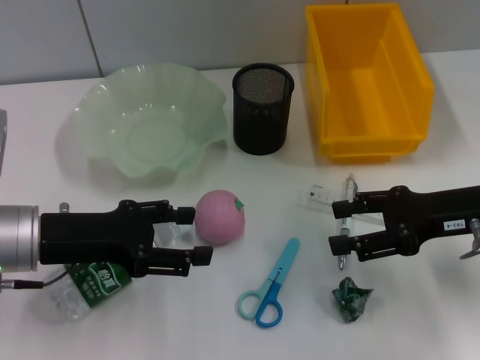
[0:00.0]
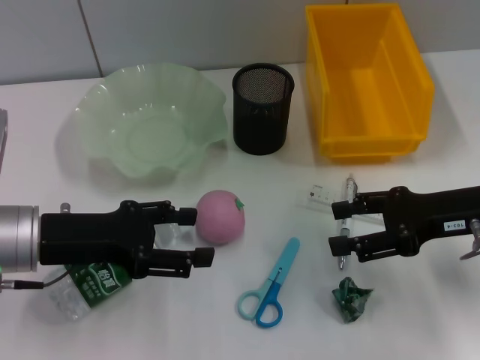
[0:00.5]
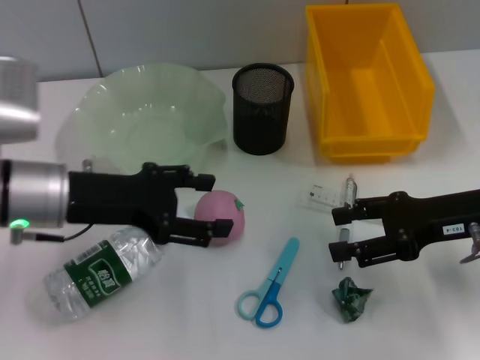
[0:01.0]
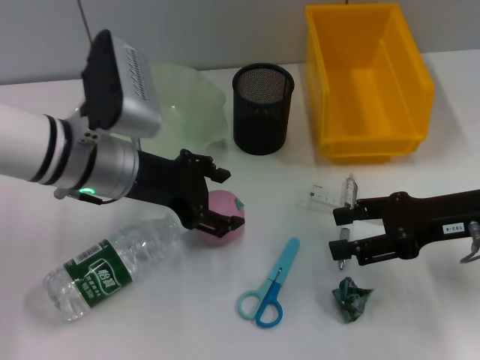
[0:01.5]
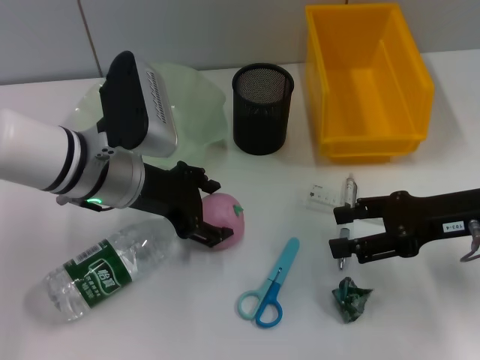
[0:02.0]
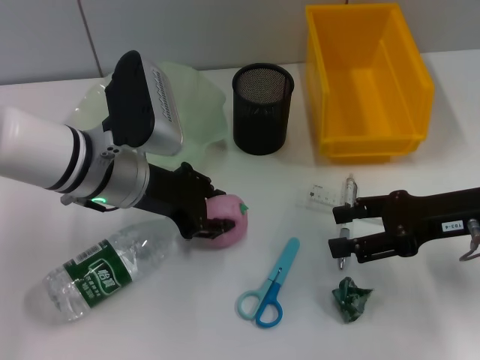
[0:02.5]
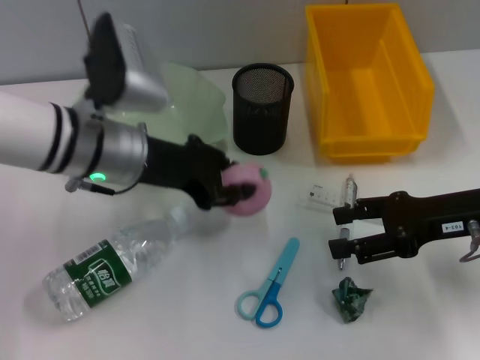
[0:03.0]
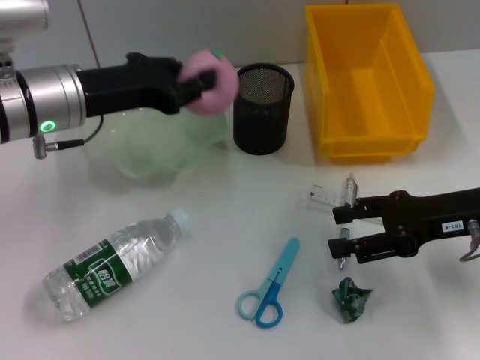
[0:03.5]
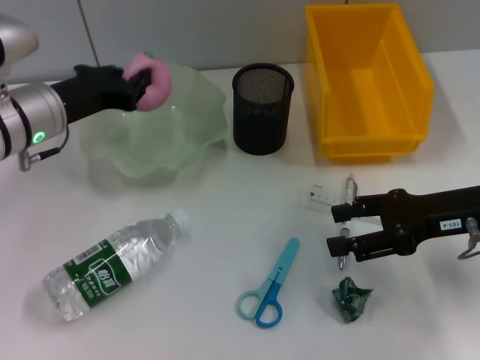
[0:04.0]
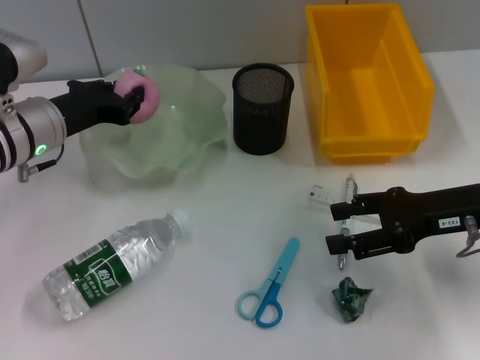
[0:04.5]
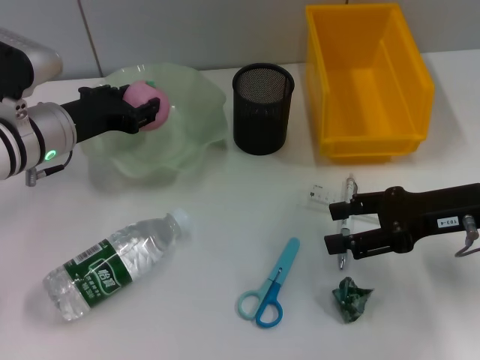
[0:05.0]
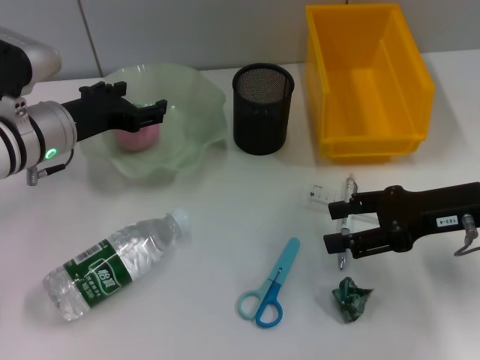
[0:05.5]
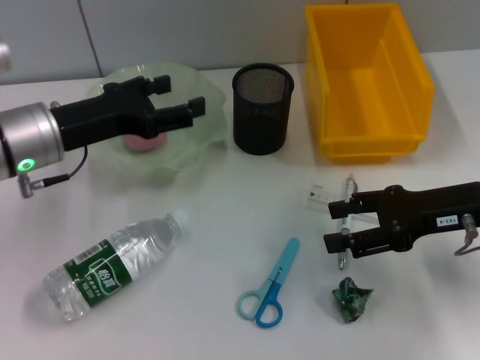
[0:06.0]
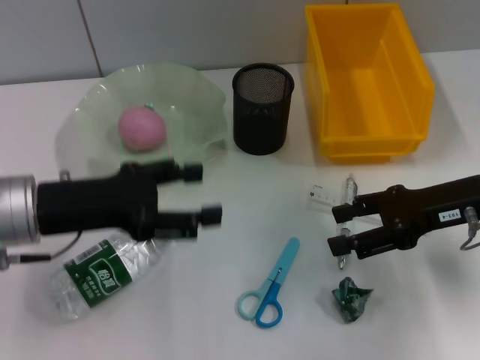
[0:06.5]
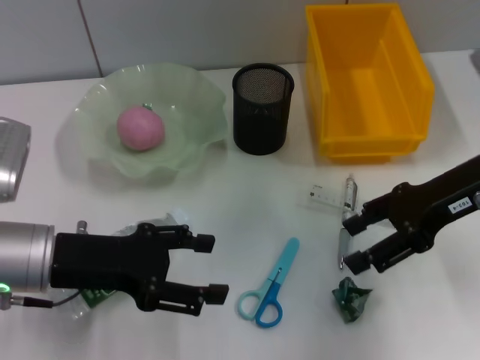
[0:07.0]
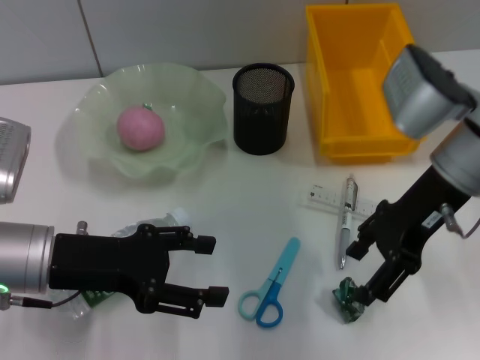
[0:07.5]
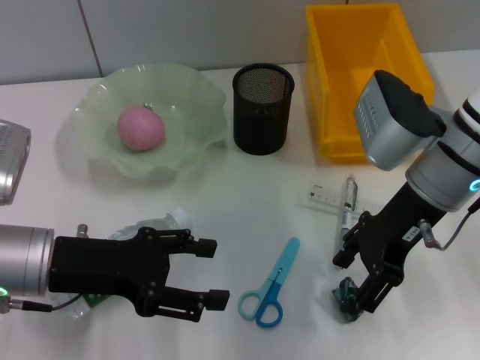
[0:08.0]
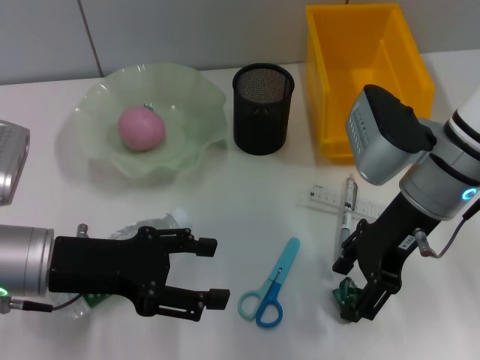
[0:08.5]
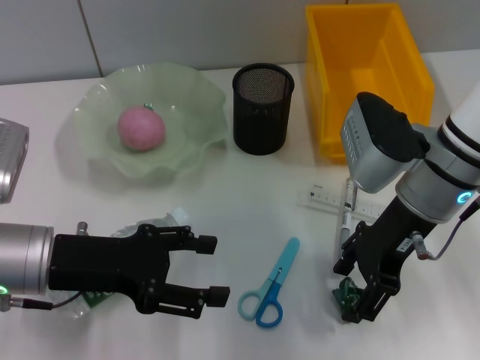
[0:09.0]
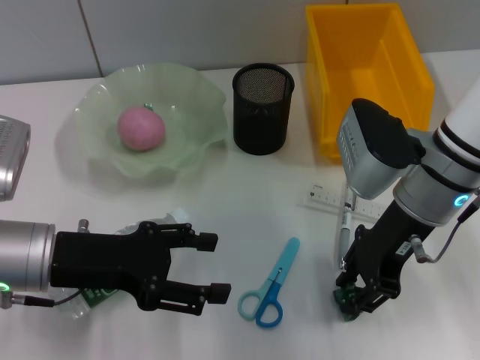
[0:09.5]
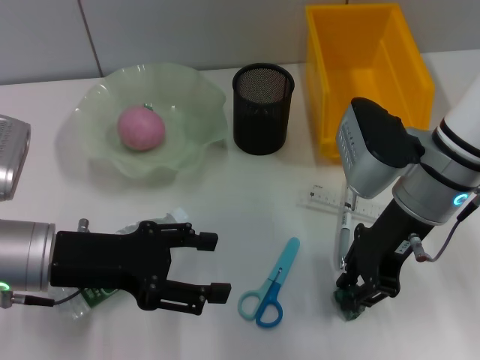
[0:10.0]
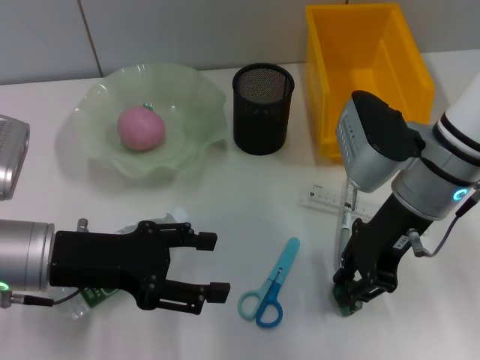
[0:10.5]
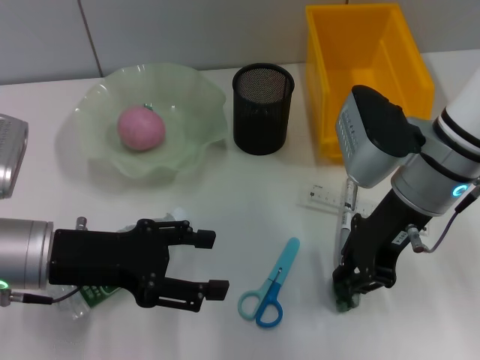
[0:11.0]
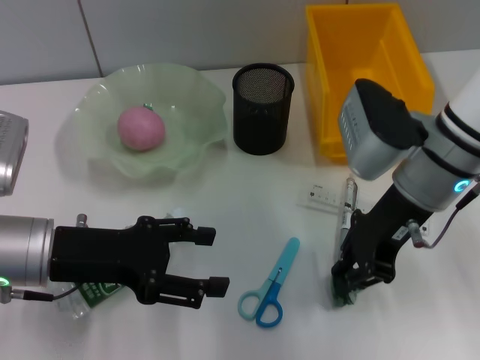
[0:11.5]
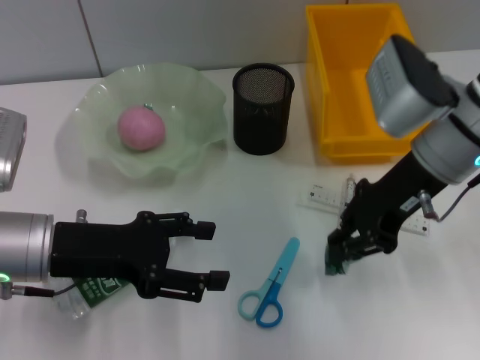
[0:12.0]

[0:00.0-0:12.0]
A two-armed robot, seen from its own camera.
Step, 0:00.0 to 0:02.5: Grab the peach with the left hand.
Step, 0:03.0 to 0:04.5: Place the peach into the fruit bowl with the left hand.
Step, 0:05.0 to 0:10.0: Grab the plastic with the right hand.
0:00.0 to 0:02.0: The left gripper shifts some 10 cm to the right and forward.
0:02.0 to 0:04.0: The left gripper goes about 5 cm to the left, and closes its fingers.
0:04.0 to 0:06.0: The left gripper opens its fingers.
0:06.0 to 0:08.0: The left gripper is displaced backward by roughly 10 cm, while the right gripper shifts roughly 10 cm to the left.
0:08.0 to 0:10.0: The right gripper closes.

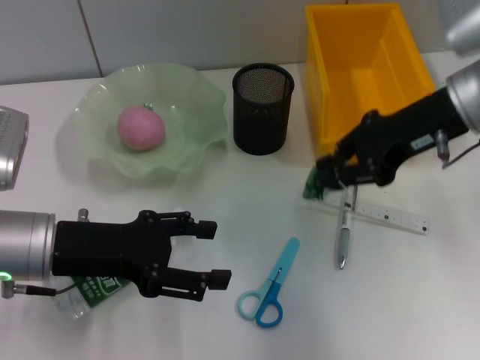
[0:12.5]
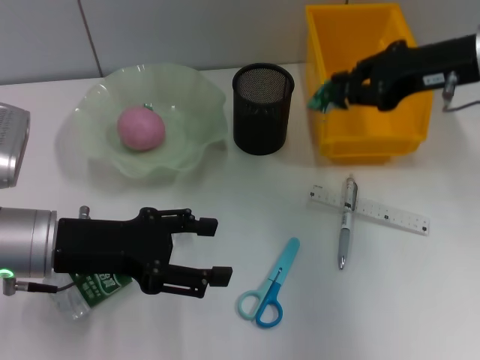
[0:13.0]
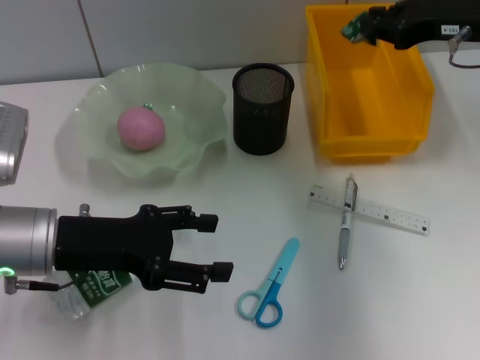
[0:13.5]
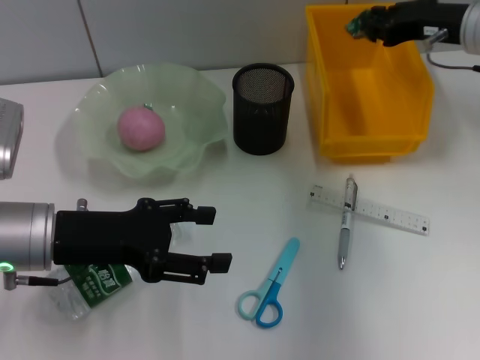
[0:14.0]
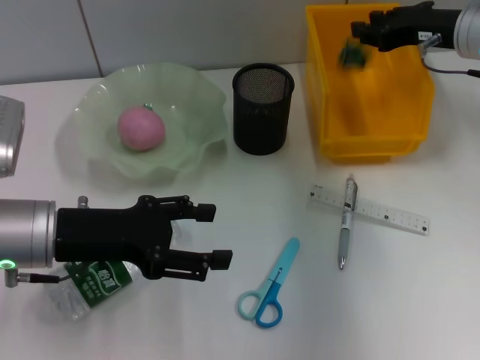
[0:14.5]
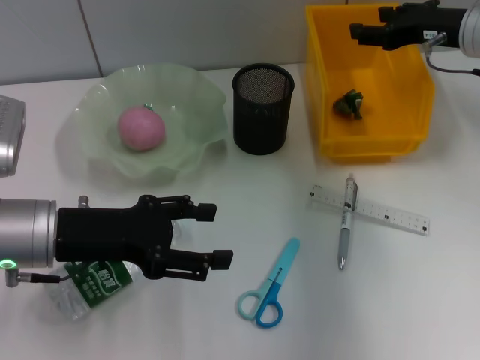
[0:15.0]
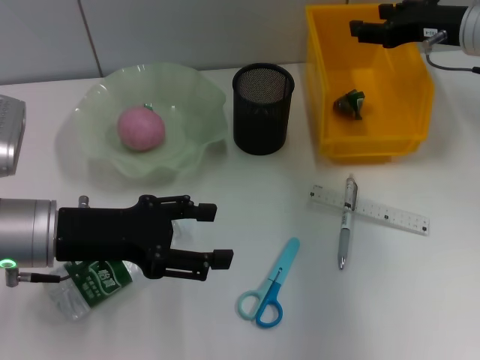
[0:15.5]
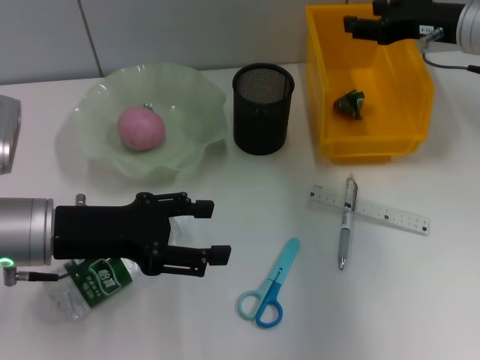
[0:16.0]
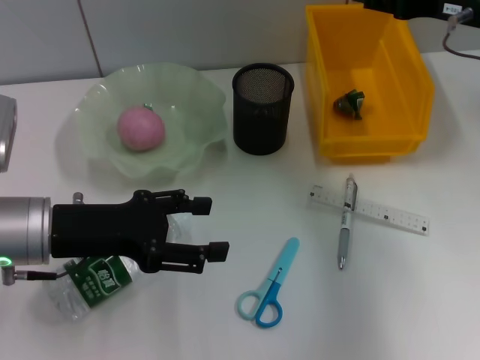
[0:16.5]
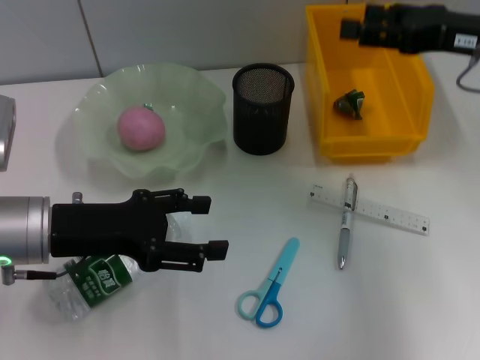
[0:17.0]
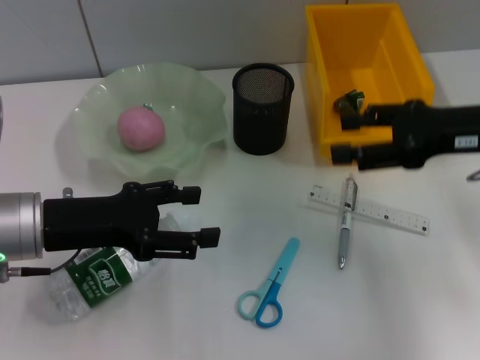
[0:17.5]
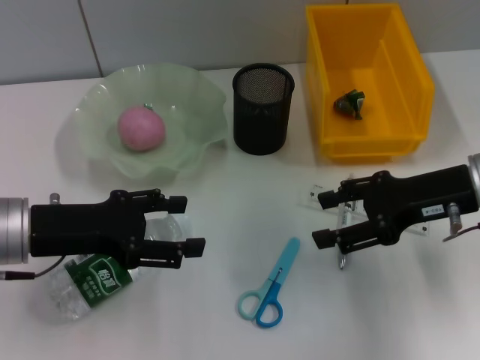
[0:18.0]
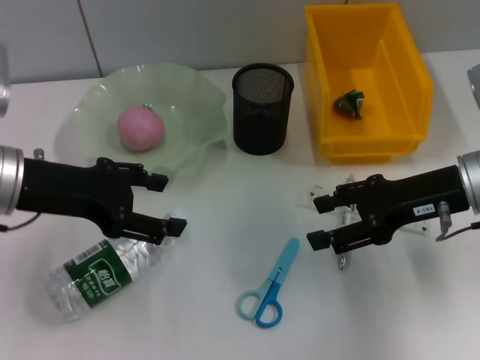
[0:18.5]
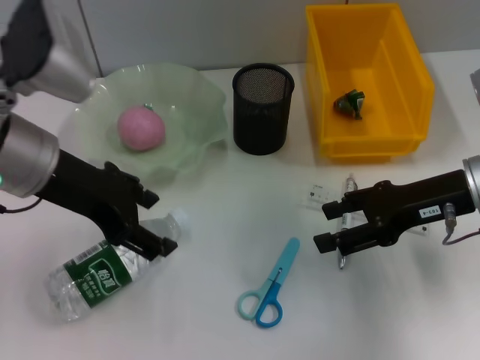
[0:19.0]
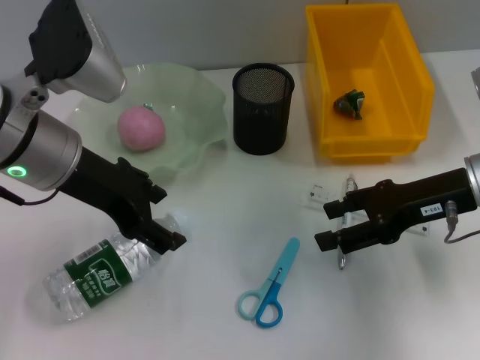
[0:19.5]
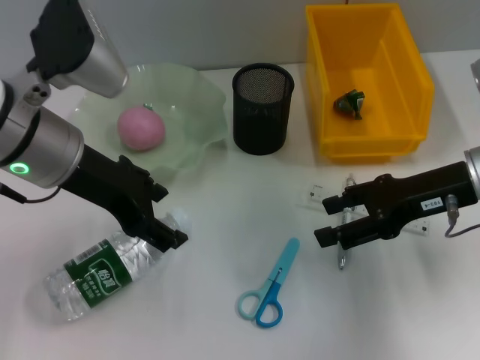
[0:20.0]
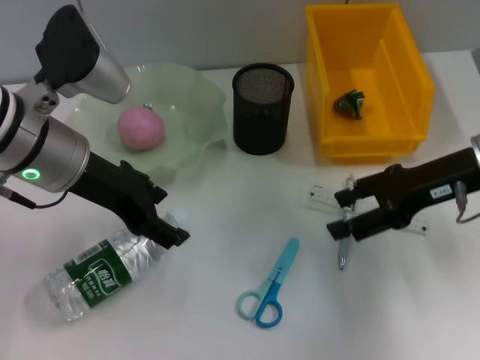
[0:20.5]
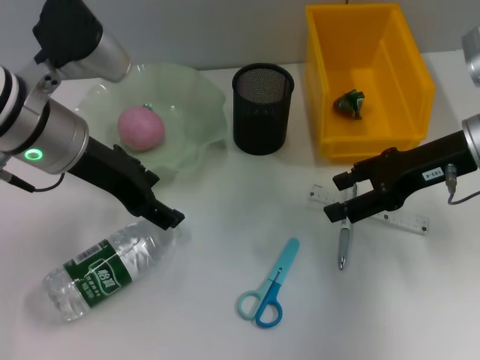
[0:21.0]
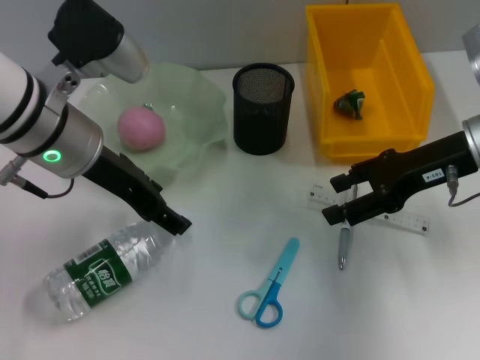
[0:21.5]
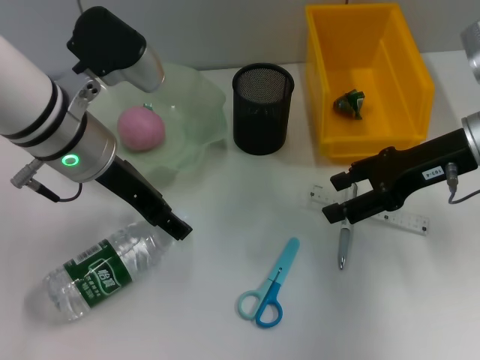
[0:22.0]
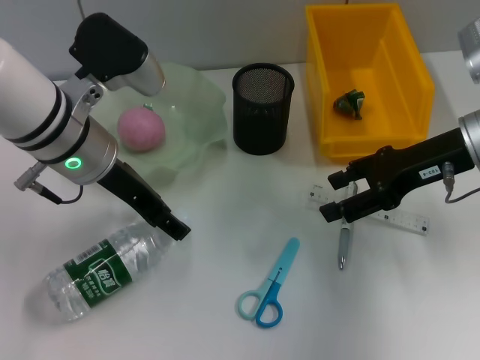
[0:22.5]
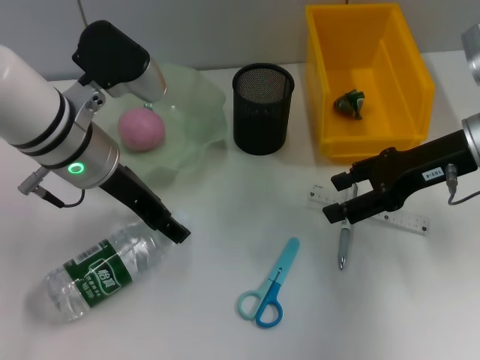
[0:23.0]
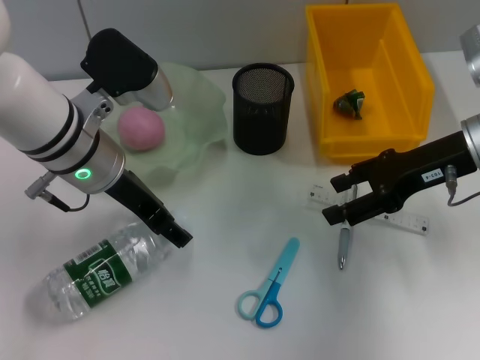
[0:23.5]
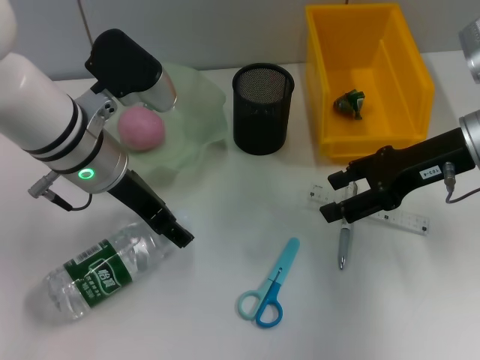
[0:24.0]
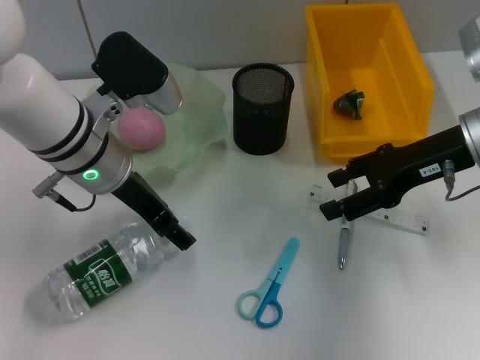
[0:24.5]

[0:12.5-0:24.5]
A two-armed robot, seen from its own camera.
Step, 0:12.5 to 0:14.5: Place the plastic into the trash can with the right hand.
0:12.5 to 0:14.5: The right gripper moves forward, roughly 5 cm.
0:14.5 to 0:16.5: The right gripper opens up.
0:16.5 to 0:18.5: The right gripper goes about 10 cm backward and downward. The left gripper changes place by approximately 5 cm.
0:18.5 to 0:20.5: The left gripper goes about 5 cm to the right.
0:20.5 to 0:24.5: The grippers make only small movements.

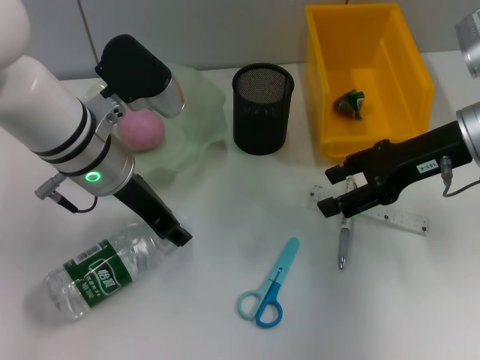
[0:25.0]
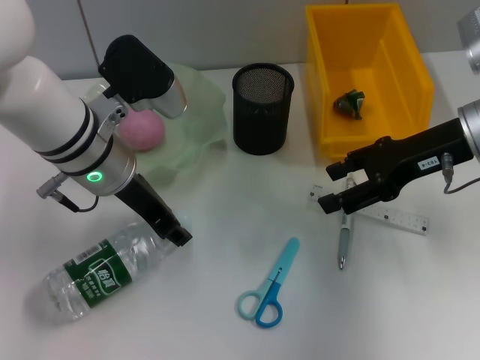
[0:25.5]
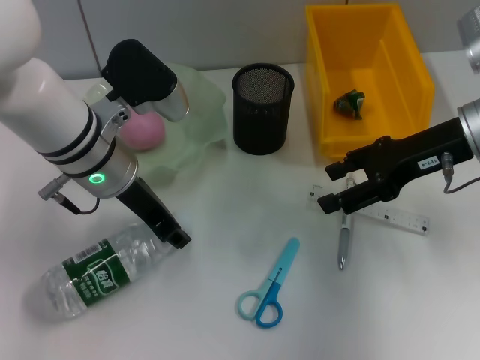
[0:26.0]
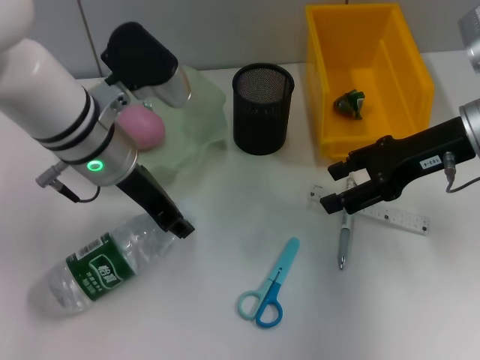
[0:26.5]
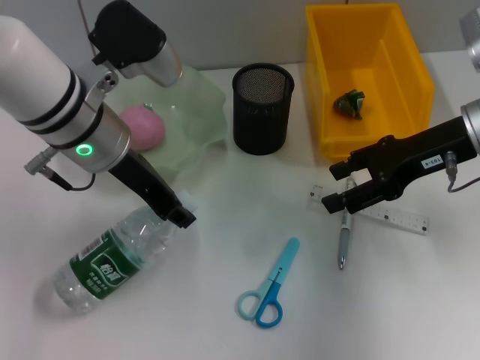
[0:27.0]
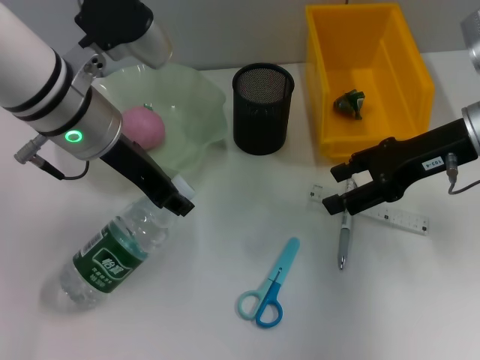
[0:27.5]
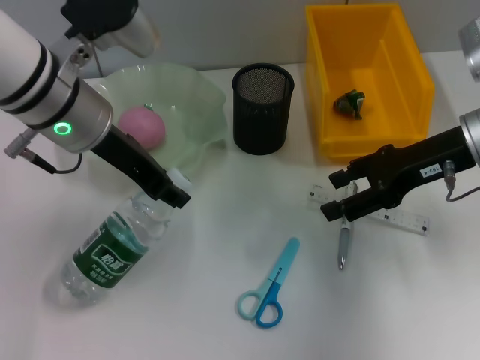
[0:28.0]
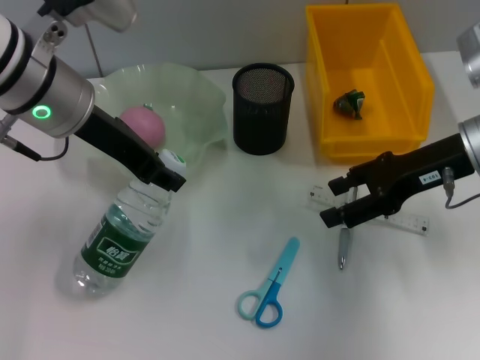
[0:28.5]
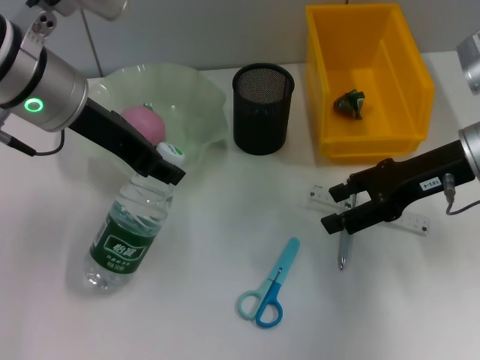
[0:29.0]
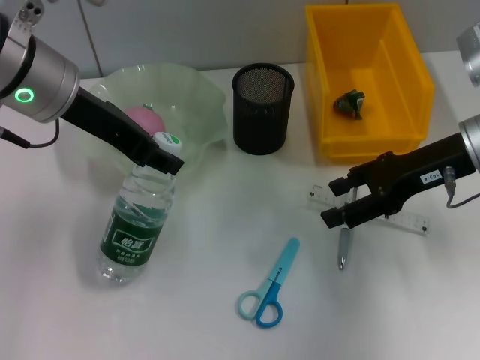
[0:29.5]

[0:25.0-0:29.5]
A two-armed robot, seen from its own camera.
0:25.0 to 0:27.0: There are only small adjustments of the grippers.
0:27.0 to 0:29.5: The left gripper goes roughly 5 cm upward.
